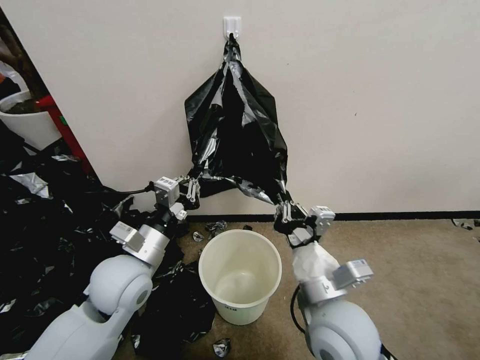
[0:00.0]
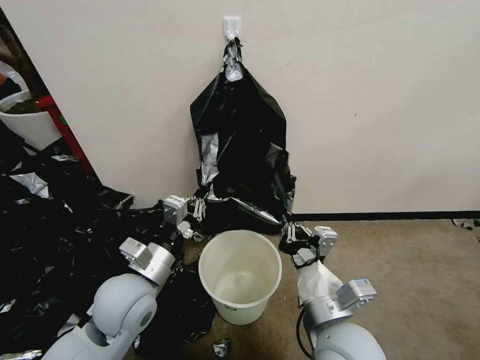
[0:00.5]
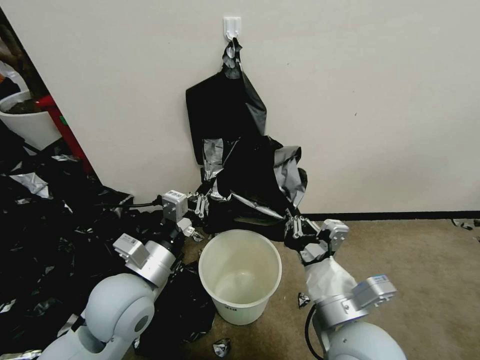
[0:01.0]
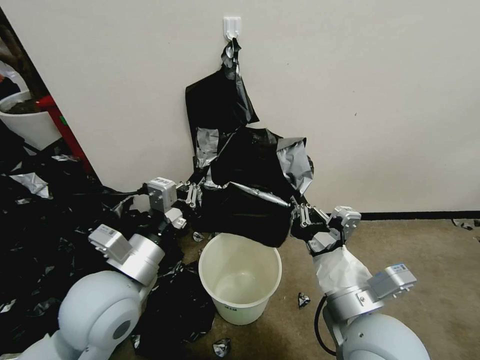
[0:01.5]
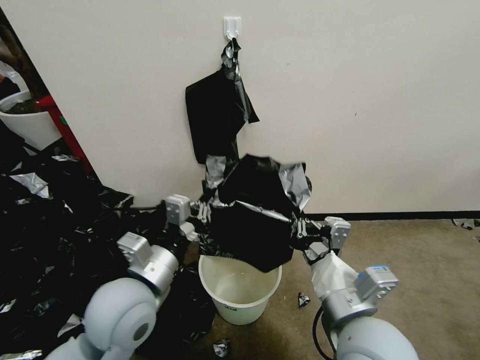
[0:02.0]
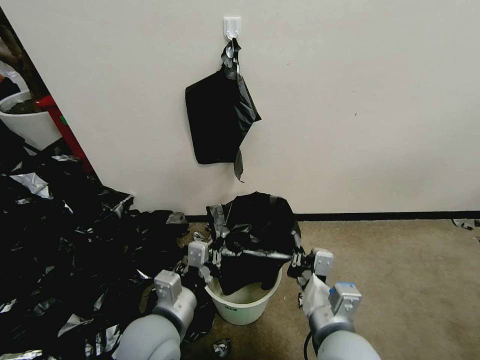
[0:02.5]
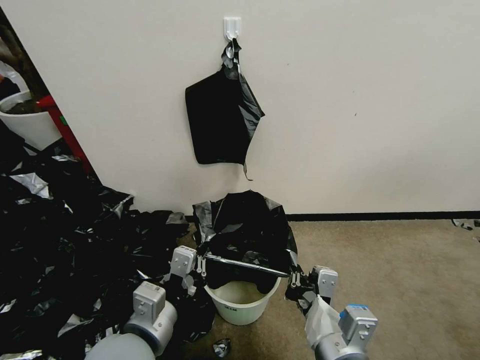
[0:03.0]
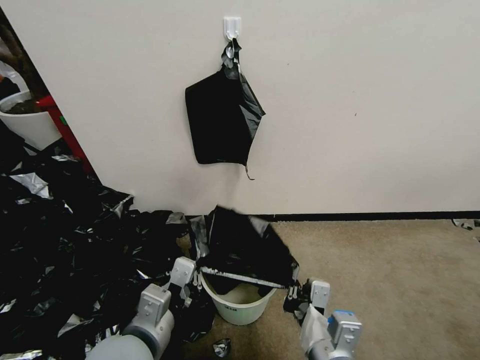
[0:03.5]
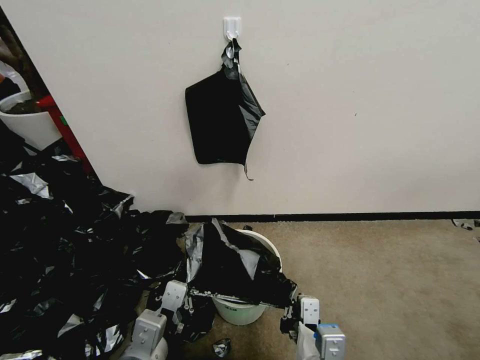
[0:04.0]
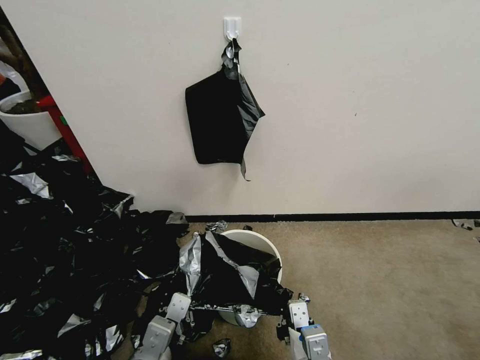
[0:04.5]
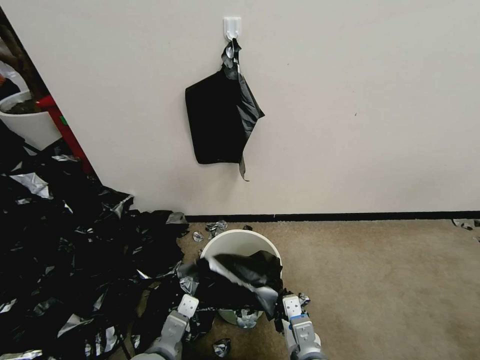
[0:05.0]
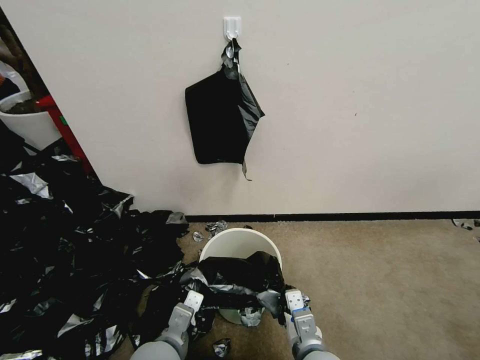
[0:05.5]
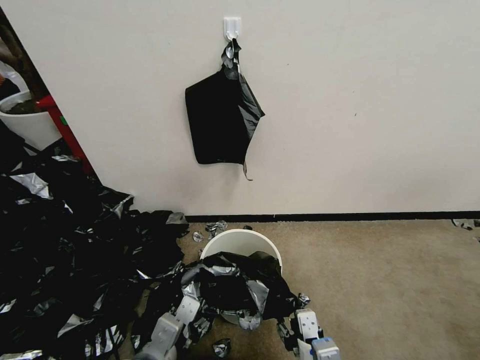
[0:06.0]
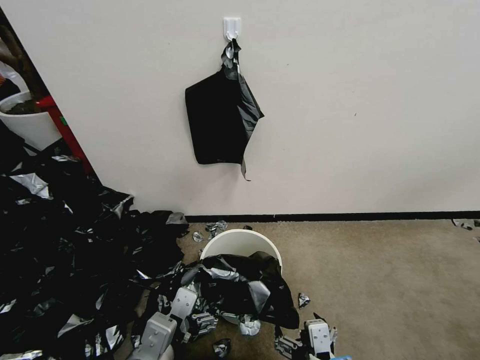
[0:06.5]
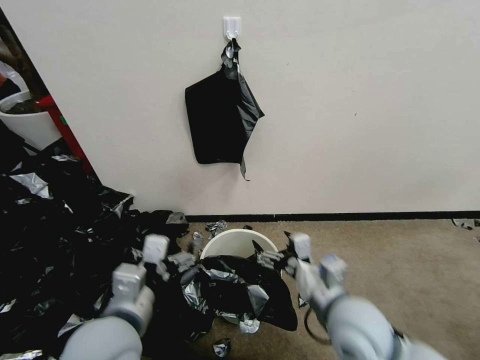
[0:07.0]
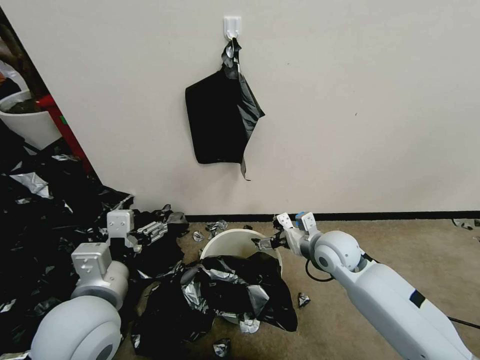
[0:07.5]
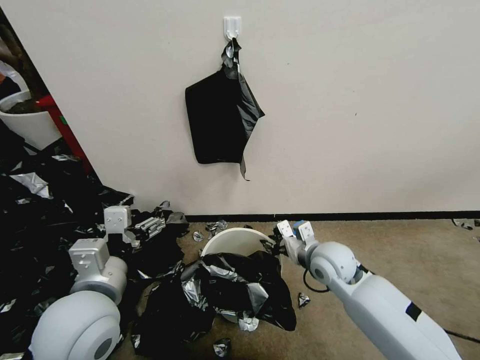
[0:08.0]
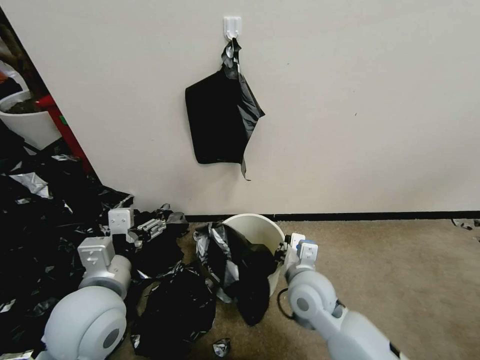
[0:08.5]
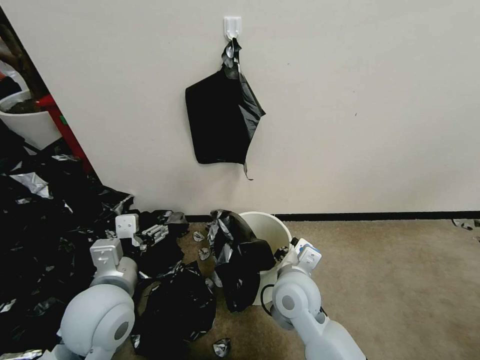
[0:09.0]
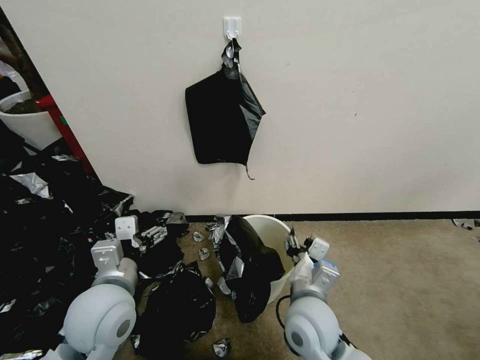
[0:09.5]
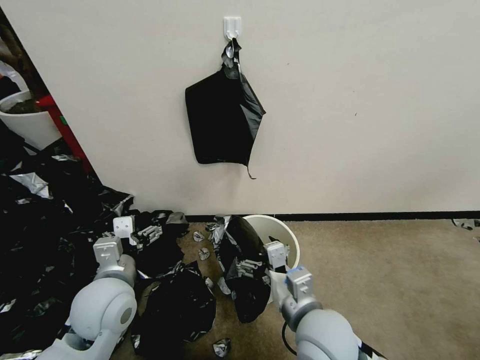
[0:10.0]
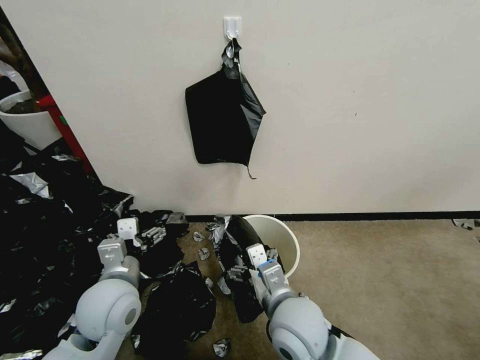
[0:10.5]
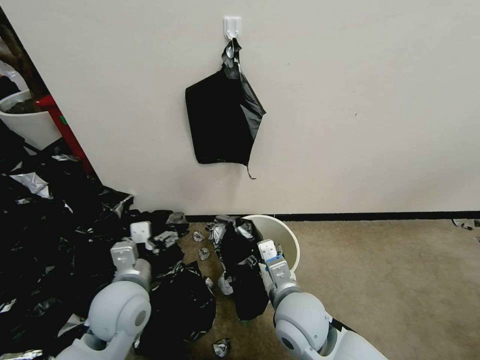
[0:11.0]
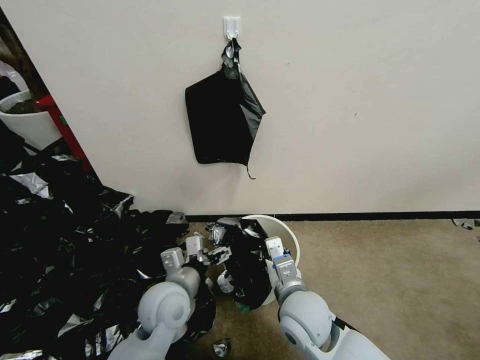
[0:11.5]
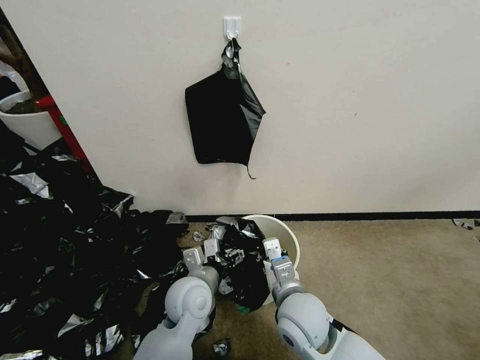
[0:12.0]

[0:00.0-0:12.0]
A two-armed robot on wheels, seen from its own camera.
Task of the whole recording: Place a trash bag onto the trash bin.
0:00.0 to 0:02.0: The left gripper is displaced backward by some 5 cm.
0:02.0 to 0:04.0: The right gripper heads downward and backward, covering approximately 10 cm. The left gripper moves backward, approximately 10 cm.
0:04.0 to 0:06.0: The right gripper opens its fingers. The left gripper reaches approximately 10 cm downward, then returns, and opens up.
0:06.0 to 0:08.0: The right gripper shifts approximately 30 cm forward, and opens, then closes again. Meanwhile the left gripper travels upward, forward and to the left by about 15 cm, and opens up.
0:08.0 to 0:10.0: The left gripper shifts about 5 cm downward, while the right gripper travels backward and to the left by roughly 20 cm, and opens up.
0:10.0 to 0:12.0: The right gripper moves downward, roughly 5 cm, and closes up. Meanwhile the left gripper travels to the right and downward by approximately 15 cm.

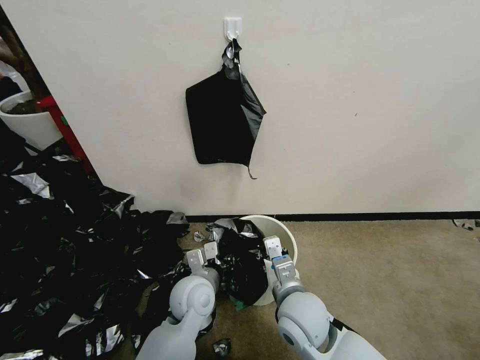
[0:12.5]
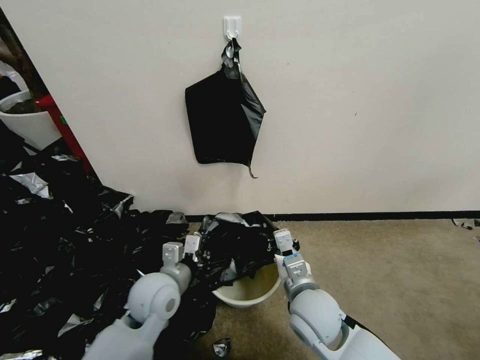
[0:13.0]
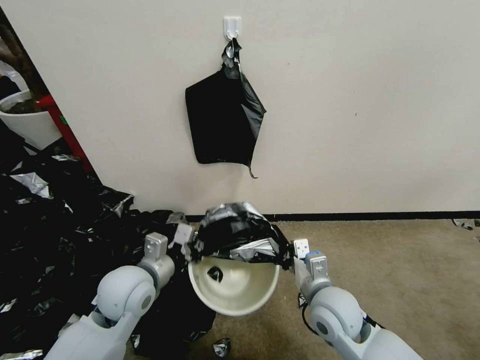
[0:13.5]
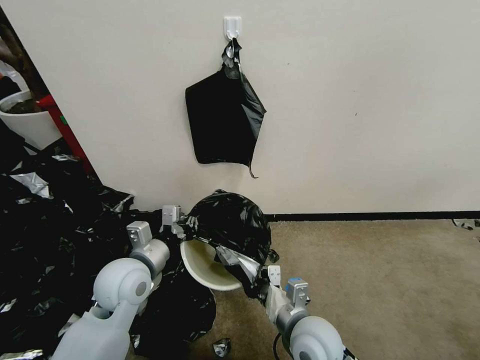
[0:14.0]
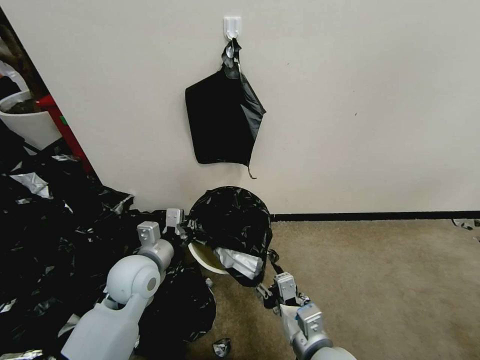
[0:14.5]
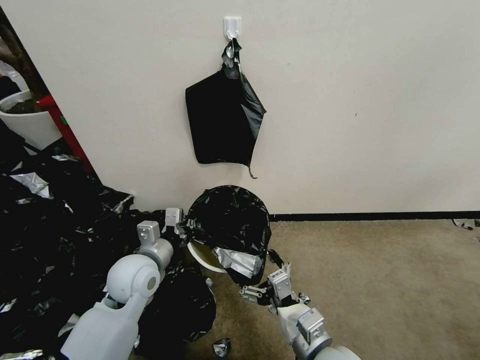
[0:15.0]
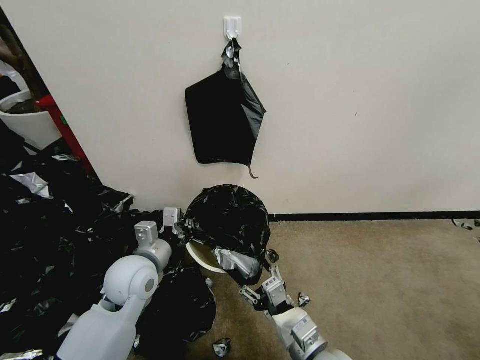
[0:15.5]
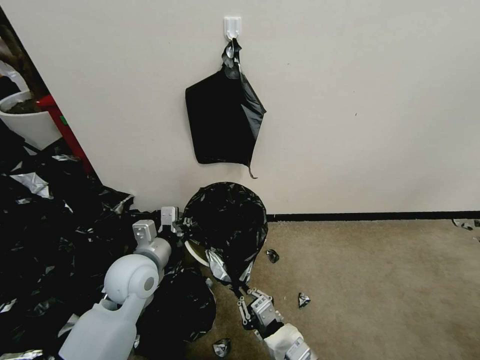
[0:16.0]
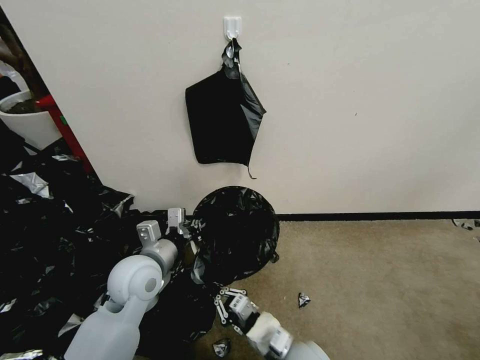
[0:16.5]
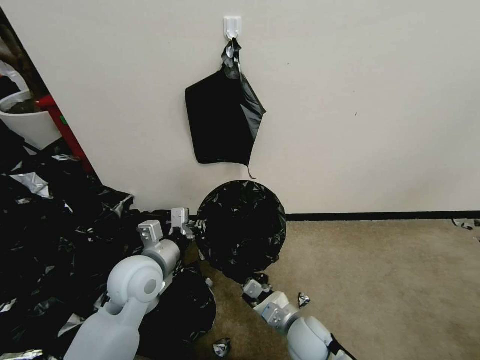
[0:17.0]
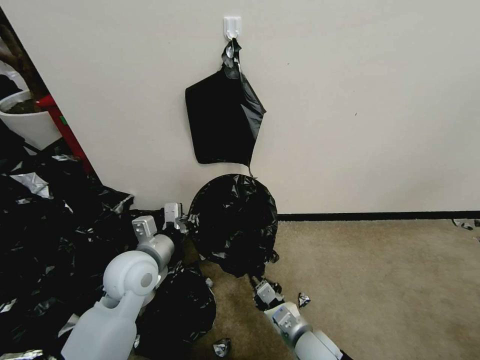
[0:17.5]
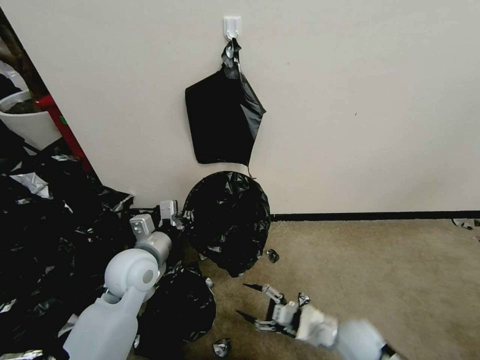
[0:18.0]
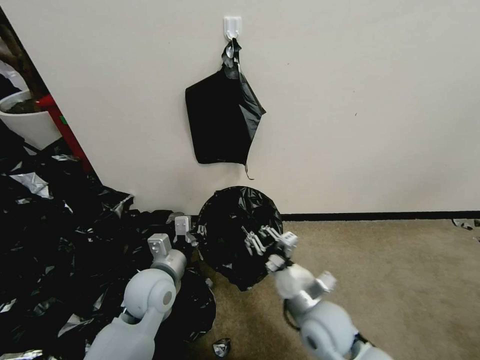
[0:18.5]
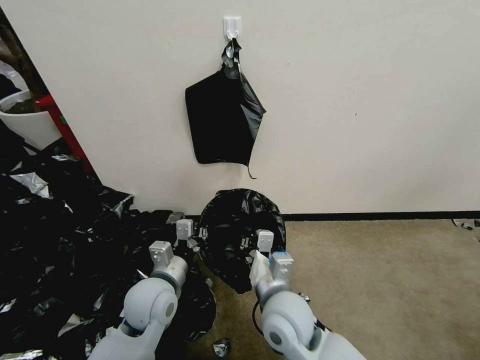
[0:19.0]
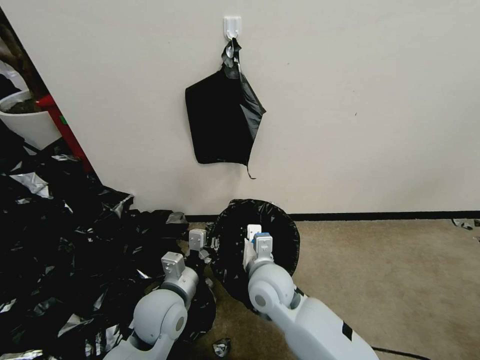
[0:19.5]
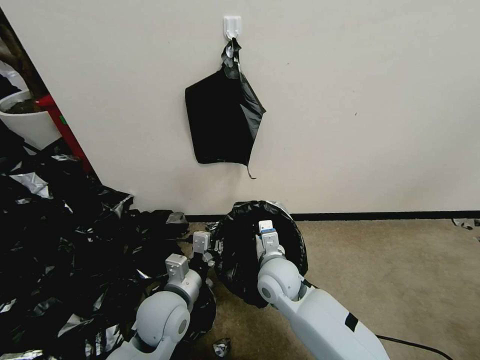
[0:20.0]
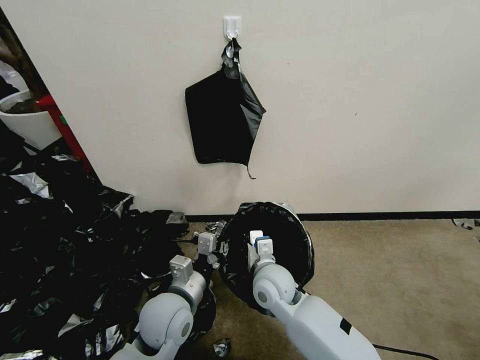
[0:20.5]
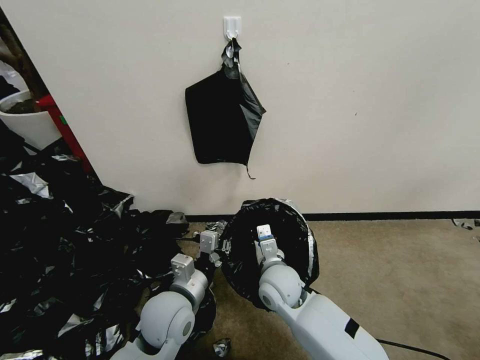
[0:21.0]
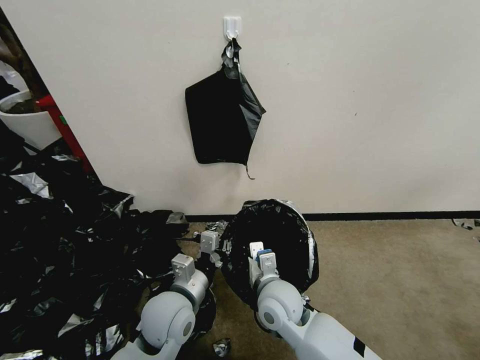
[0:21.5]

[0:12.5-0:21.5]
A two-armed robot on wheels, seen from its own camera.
Task of the whole recording: Place a trash bag onto the trash bin.
0:12.5 to 0:14.5: The left gripper travels to the left and upward by roughly 15 cm; the right gripper heads backward, covering some 10 cm, and opens up.
0:14.5 to 0:17.0: The right gripper shifts approximately 15 cm downward and forward, and closes its fingers.
0:17.0 to 0:19.5: The right gripper travels upward, to the left and forward by some 20 cm, and opens and closes again, while the left gripper is displaced downward by some 5 cm.
0:19.5 to 0:21.5: The grippers stay close to where they were, moving slightly.

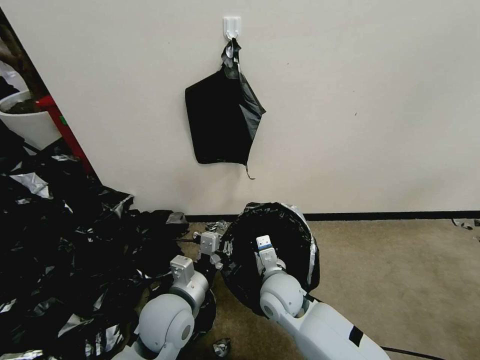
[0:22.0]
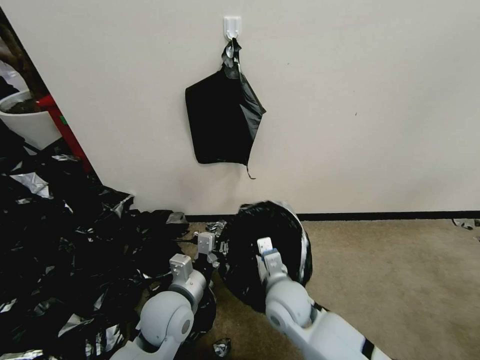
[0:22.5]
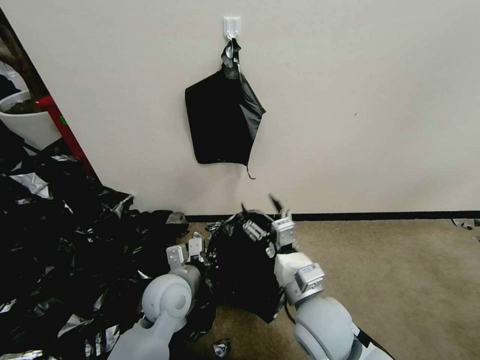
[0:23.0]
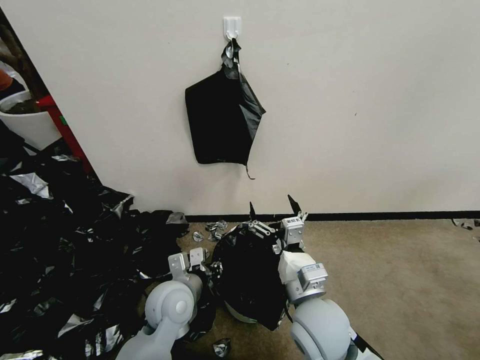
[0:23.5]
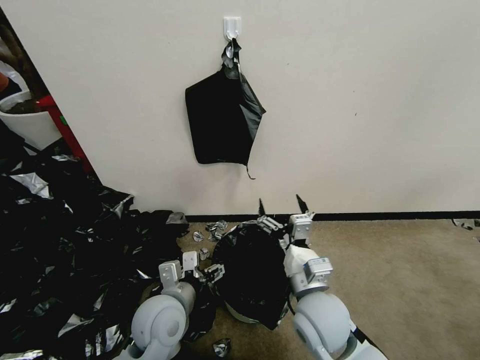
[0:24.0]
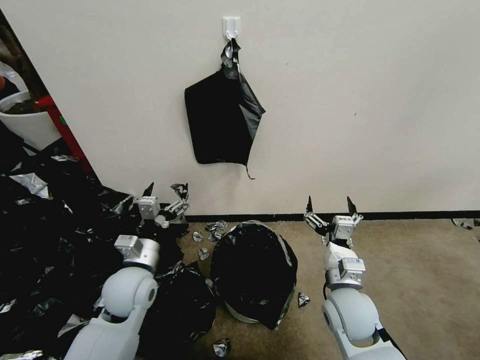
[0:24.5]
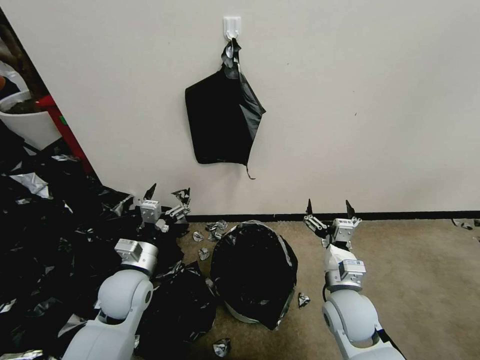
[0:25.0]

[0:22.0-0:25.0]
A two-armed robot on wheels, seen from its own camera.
Task of the whole recording: Place a trash bag onto the trash bin.
0:22.0 to 0:23.5: The right gripper travels upward and backward by about 10 cm, and opens its fingers.
0:23.5 to 0:25.0: The left gripper goes approximately 10 cm to the left, and opens up. Meanwhile the right gripper heads to the right and downward, covering roughly 10 cm.
